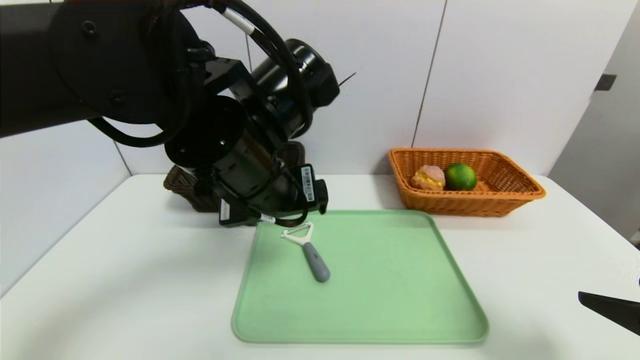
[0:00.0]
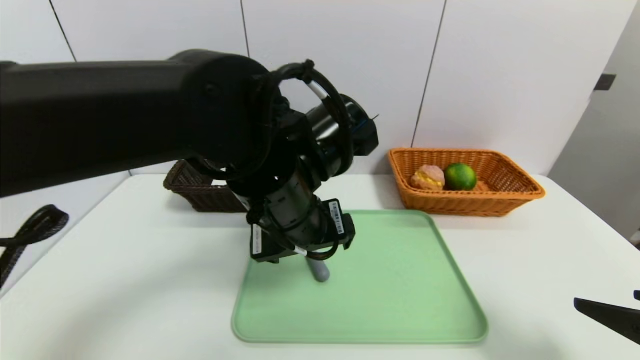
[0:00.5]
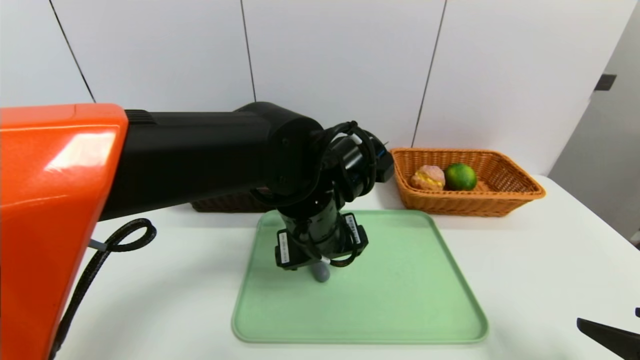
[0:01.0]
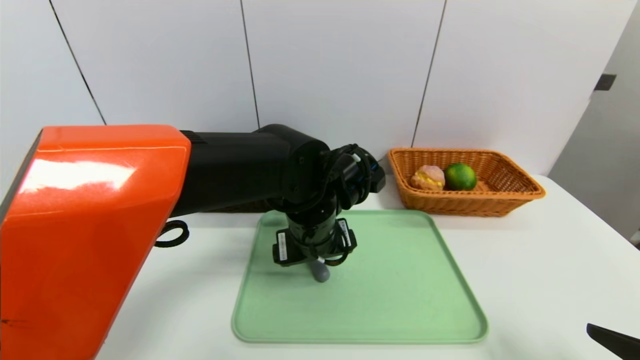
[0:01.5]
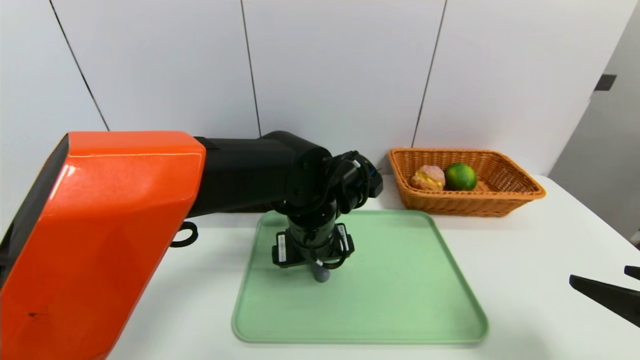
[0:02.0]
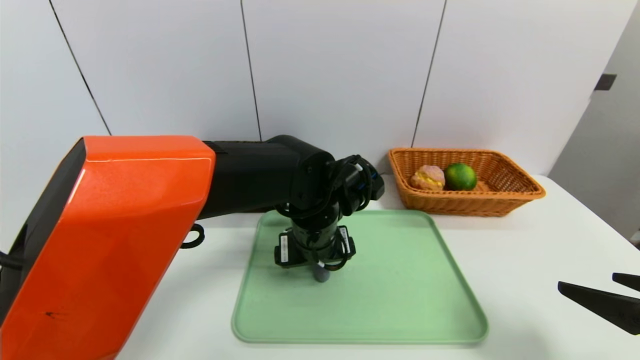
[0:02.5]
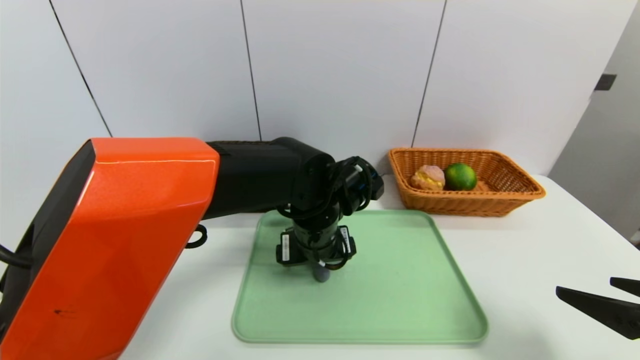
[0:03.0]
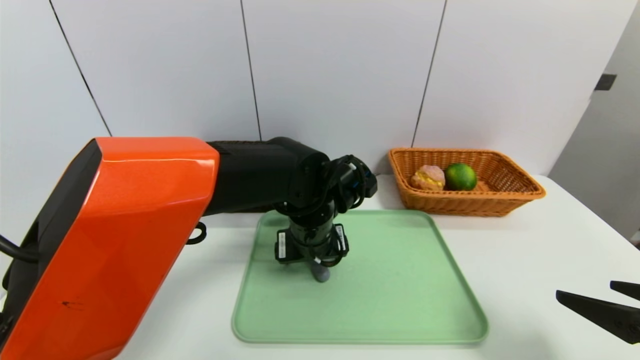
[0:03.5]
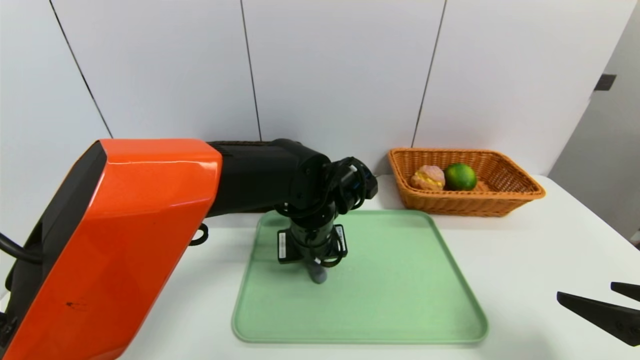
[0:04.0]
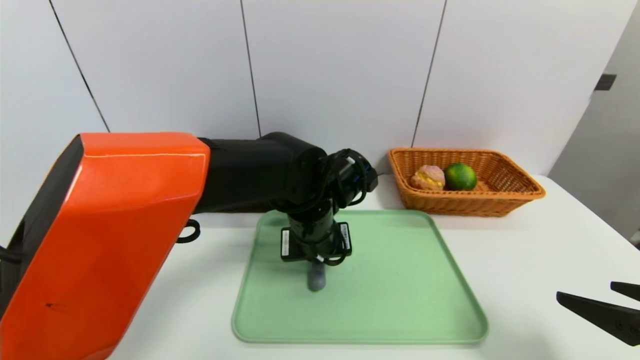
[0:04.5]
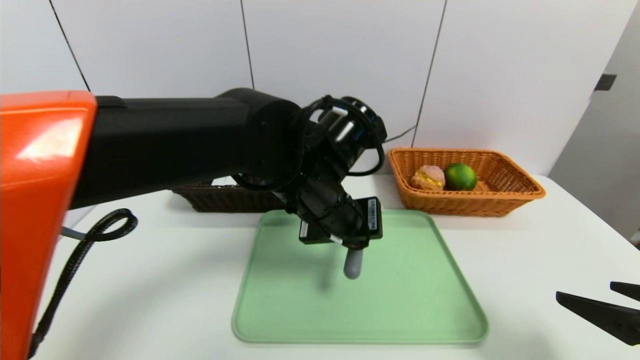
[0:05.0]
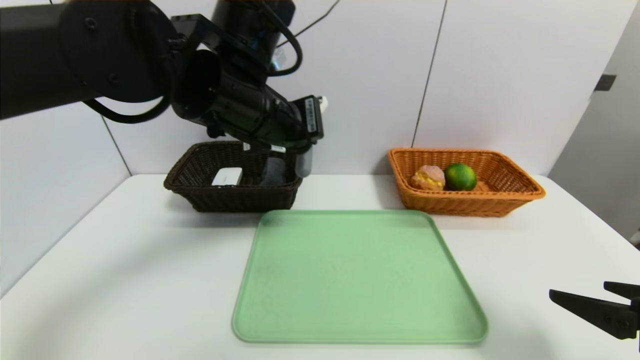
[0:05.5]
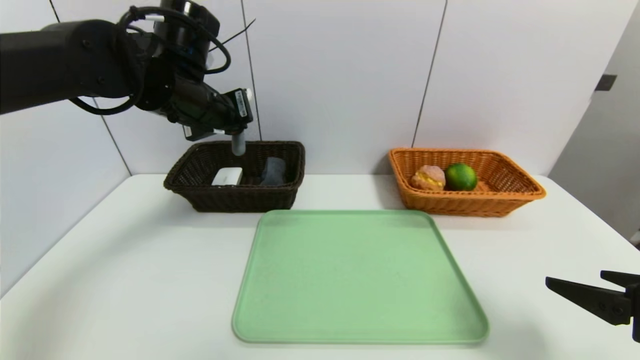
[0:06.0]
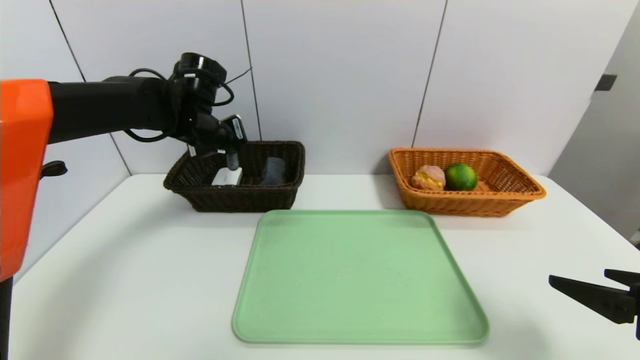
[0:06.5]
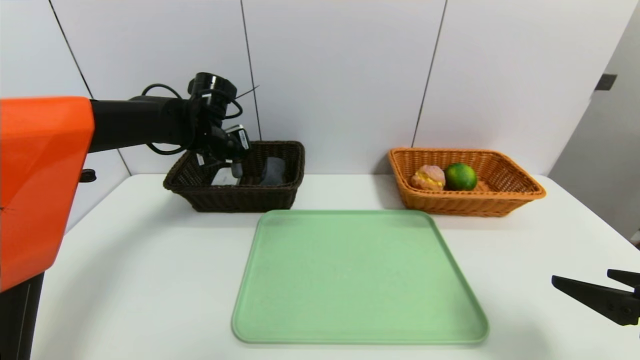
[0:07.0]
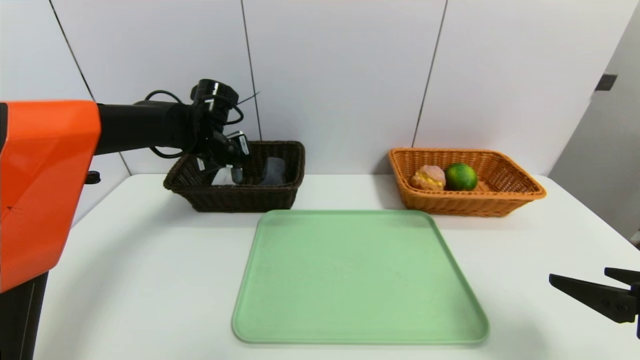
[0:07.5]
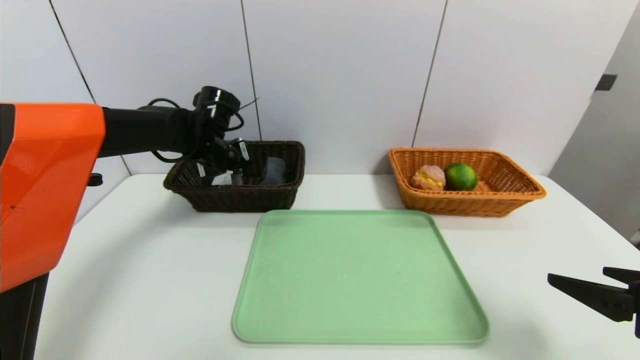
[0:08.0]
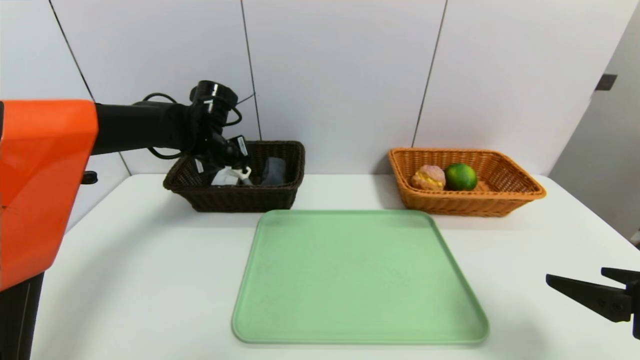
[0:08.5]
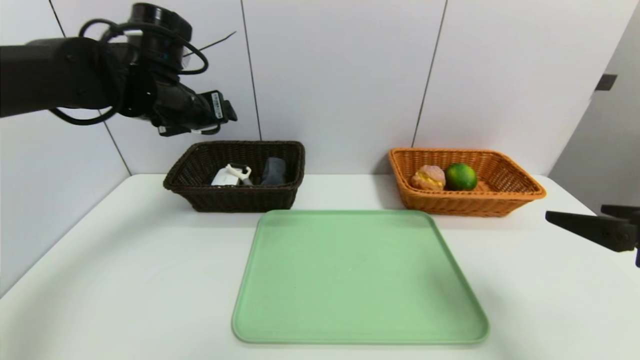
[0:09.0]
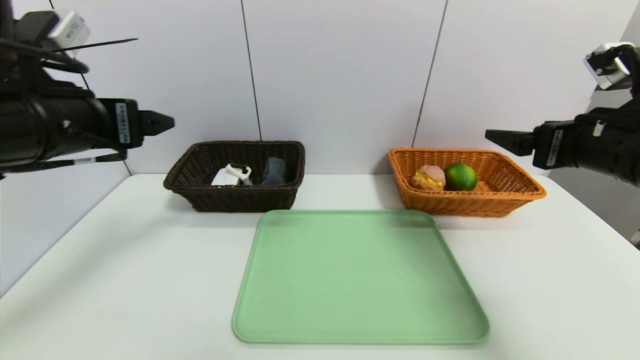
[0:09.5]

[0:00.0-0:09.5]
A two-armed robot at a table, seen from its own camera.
Task of the whole recording: place the food in the right basket with the right gripper, and place the non food items in the left basket with the left gripper.
Step, 0:00.0 to 0:08.5: Grasp the peeler and put it in the left basket.
0:00.0 to 0:02.0: The left gripper is displaced downward, forward and to the right by some 15 cm.
0:02.0 to 0:04.0: The left gripper closes.
0:04.0 to 0:05.5: The left gripper moves upward and to the left, approximately 20 cm.
0:05.5 to 0:07.5: The left gripper travels forward, downward and to the left by about 20 cm.
0:07.5 to 0:09.5: The left gripper heads backward and upward, covering roughly 25 cm, and opens its fingers. The right gripper shifts roughly 15 cm forward and upward.

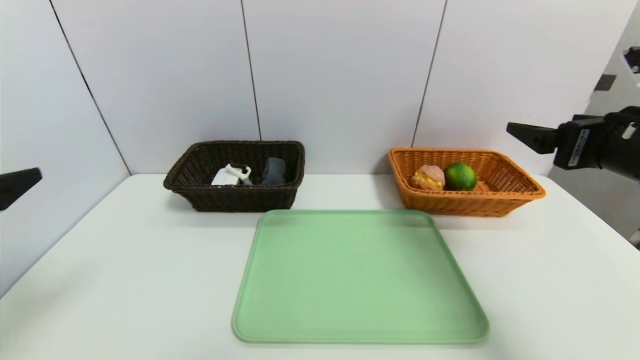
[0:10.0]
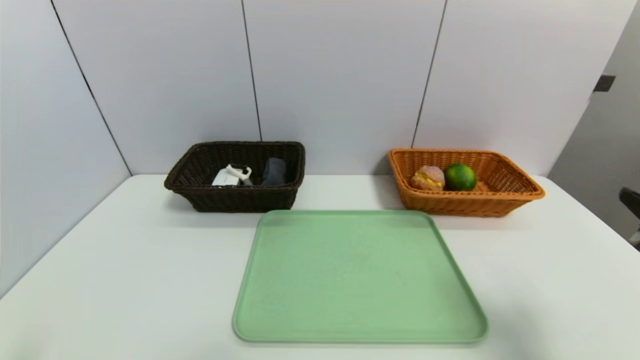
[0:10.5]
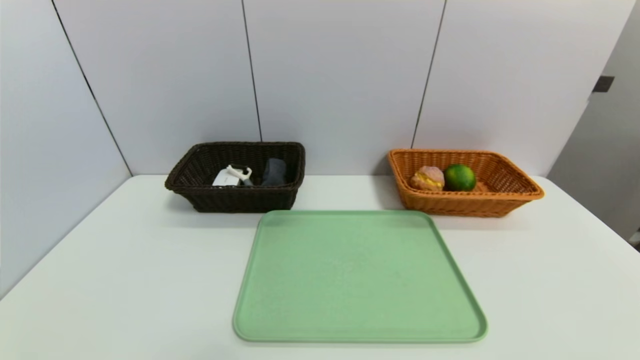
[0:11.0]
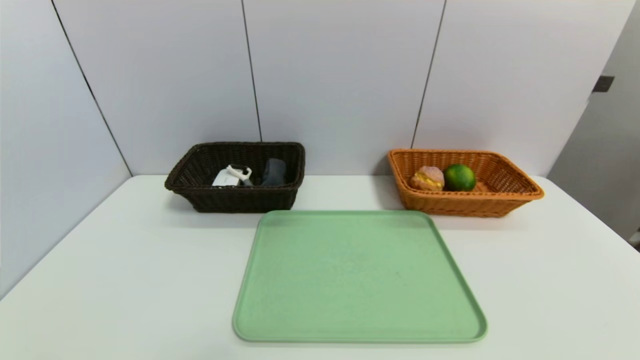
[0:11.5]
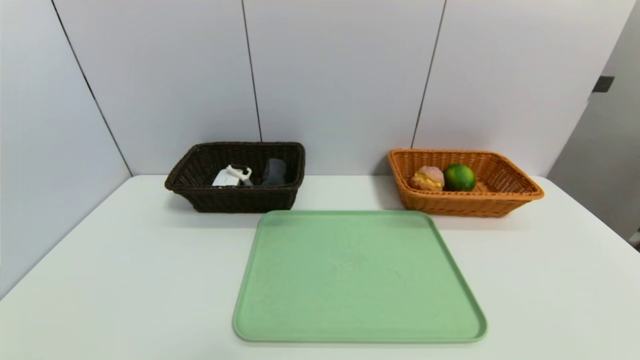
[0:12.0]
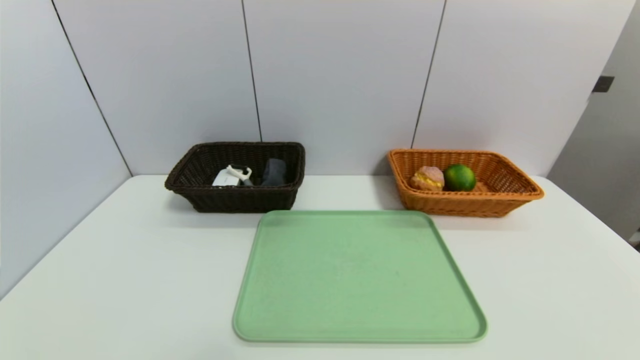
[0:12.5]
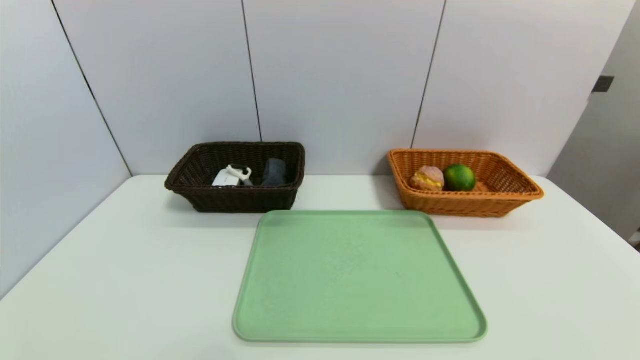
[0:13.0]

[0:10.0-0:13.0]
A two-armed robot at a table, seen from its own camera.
Task of the whole recording: place the food in the right basket with the right gripper, and place the non food items in the left basket with the left gripper.
0:10.0 to 0:11.5: The left gripper moves downward and backward, approximately 20 cm. The right gripper heads backward and downward, covering about 30 cm.

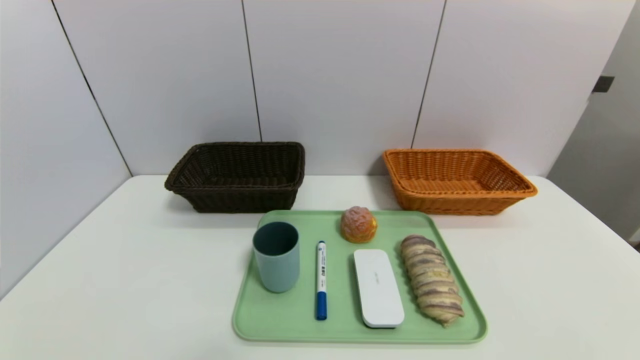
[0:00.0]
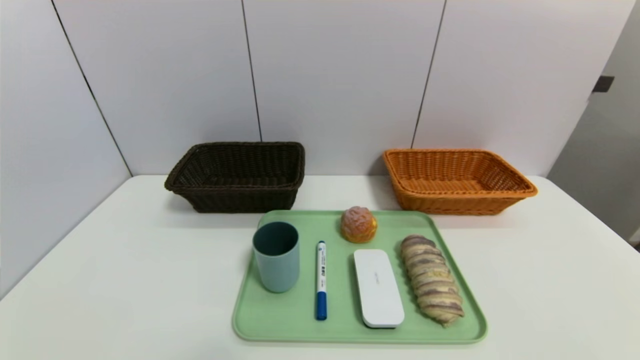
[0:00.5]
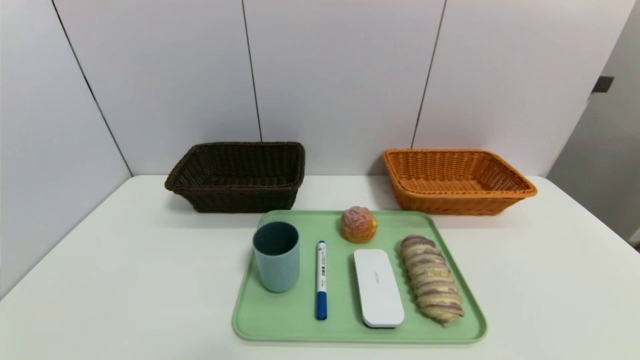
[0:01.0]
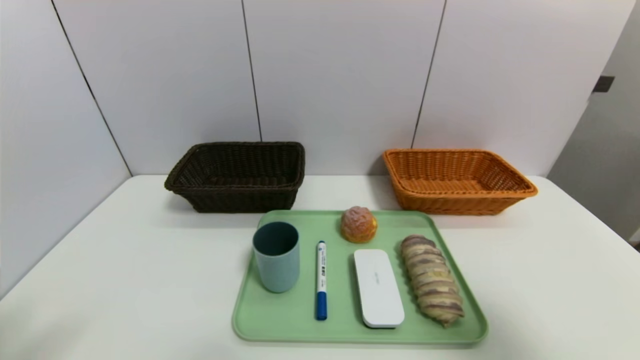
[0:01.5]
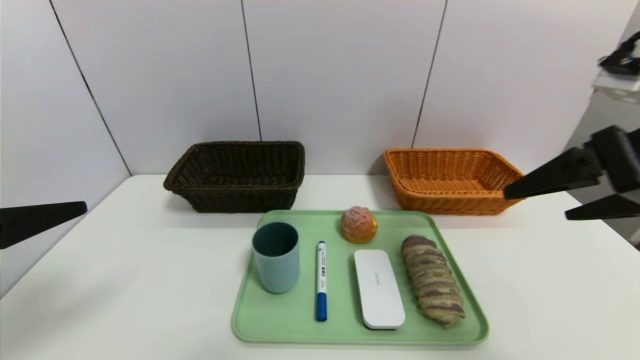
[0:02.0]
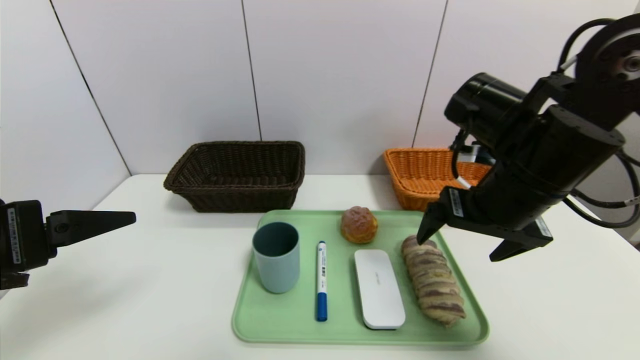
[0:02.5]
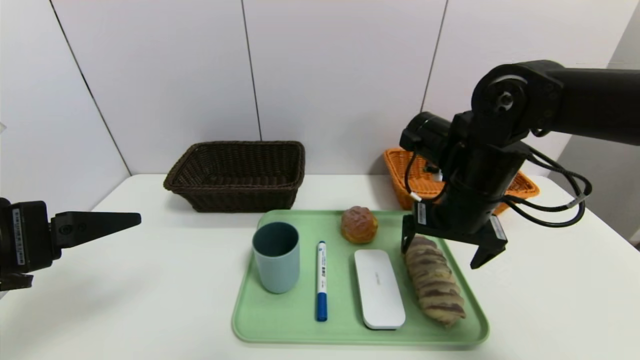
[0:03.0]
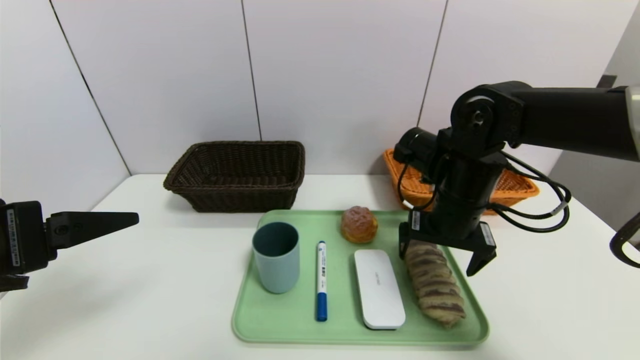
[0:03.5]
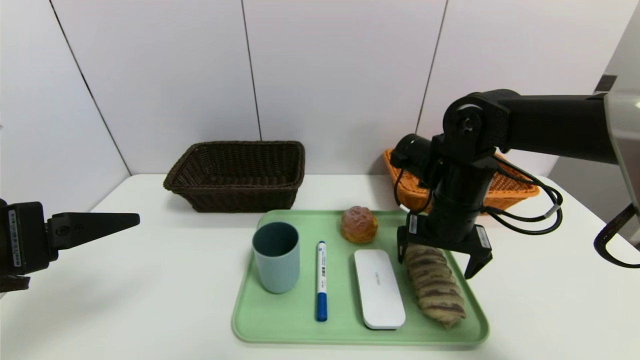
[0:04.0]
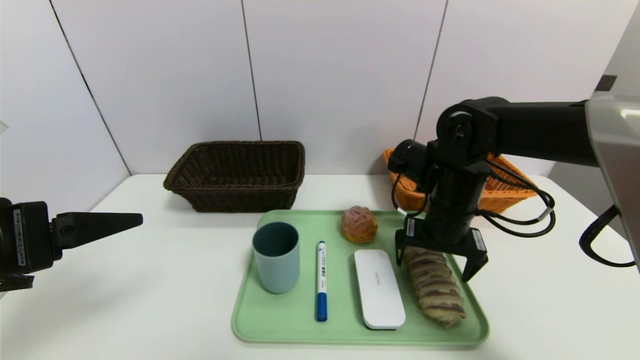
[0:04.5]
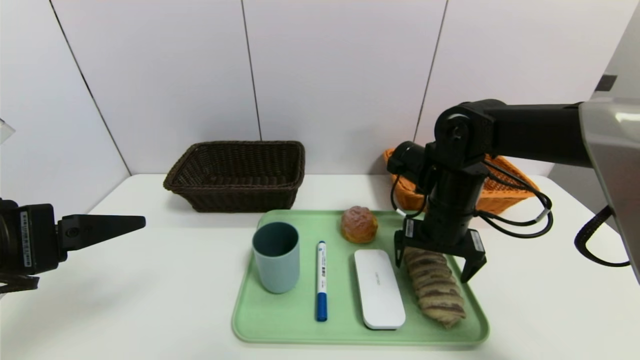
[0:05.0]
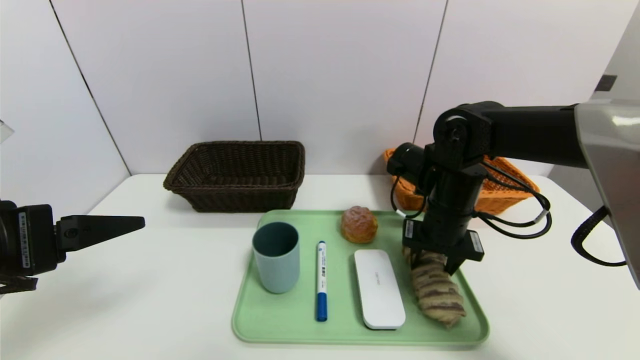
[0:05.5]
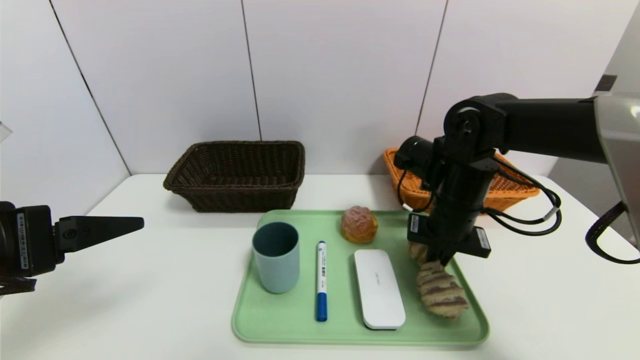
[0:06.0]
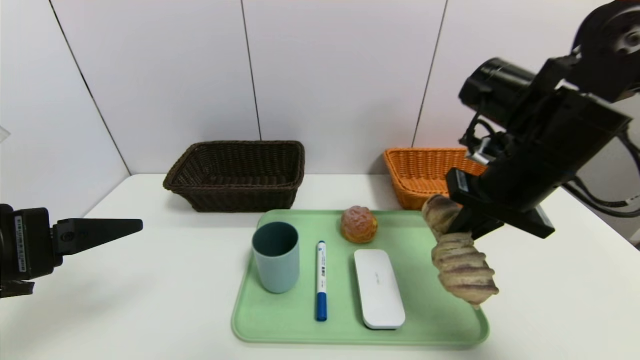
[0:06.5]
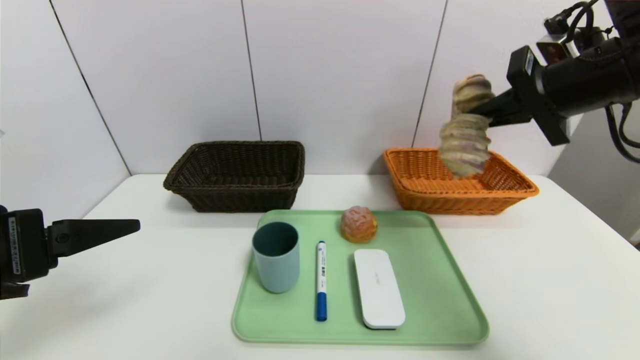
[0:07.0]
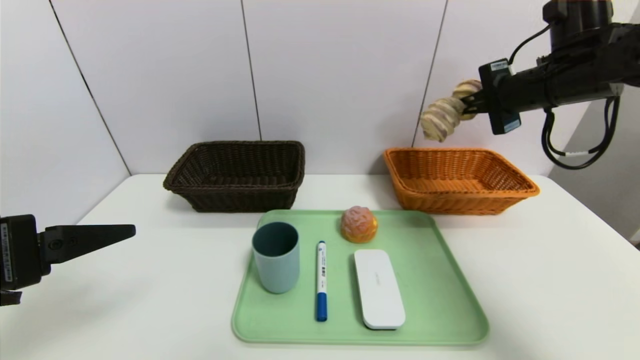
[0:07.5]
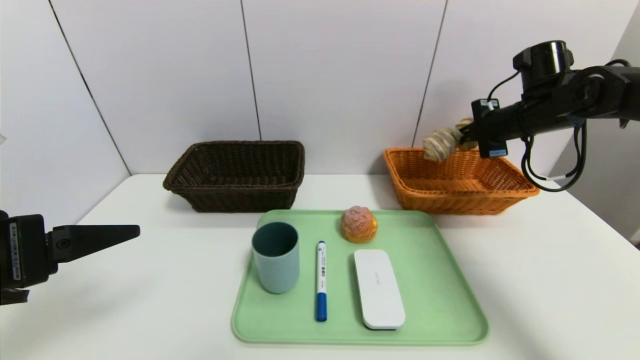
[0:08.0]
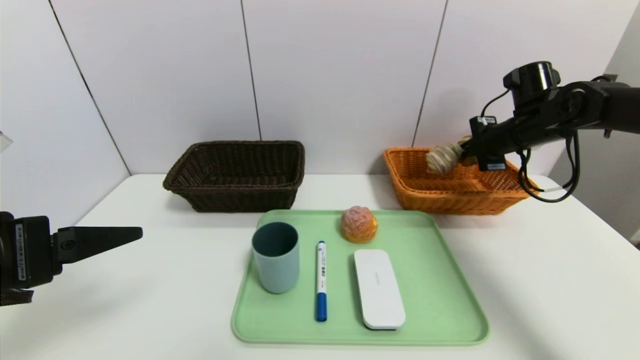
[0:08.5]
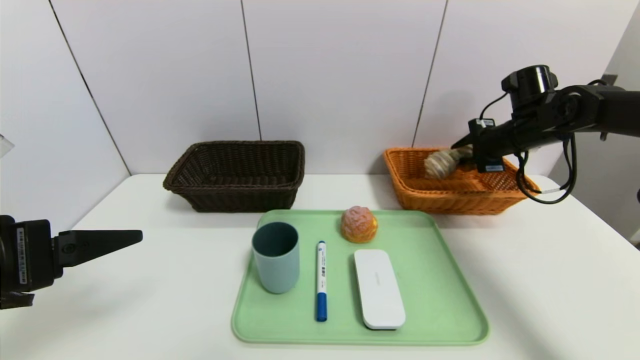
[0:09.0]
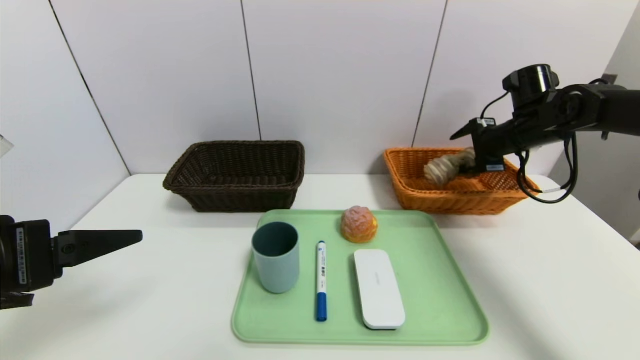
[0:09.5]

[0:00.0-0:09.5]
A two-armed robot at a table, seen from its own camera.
Task of the whole recording: place the food in the right basket with the right gripper, and place the non food items in the left basket with the left gripper.
0:00.0 to 0:02.0: The grippers both shift upward and forward by approximately 30 cm.
0:02.0 to 0:04.0: The right gripper heads downward, forward and to the left, covering approximately 25 cm.
0:04.0 to 0:05.5: The right gripper closes.
0:05.5 to 0:07.5: The right gripper is displaced upward and to the right by about 20 cm, and closes its fingers.
0:07.5 to 0:09.5: The right gripper is displaced downward and forward by some 10 cm, and opens.
